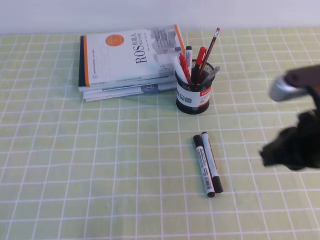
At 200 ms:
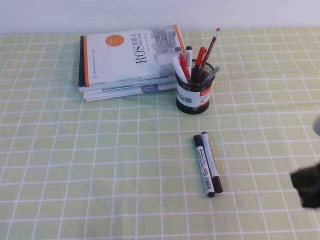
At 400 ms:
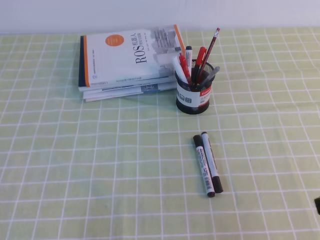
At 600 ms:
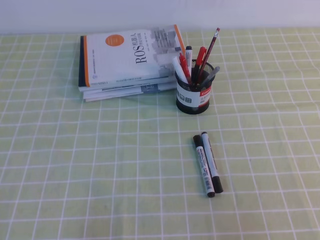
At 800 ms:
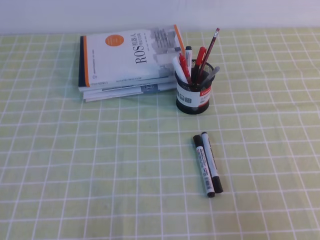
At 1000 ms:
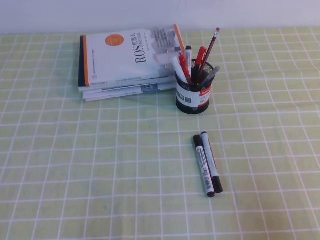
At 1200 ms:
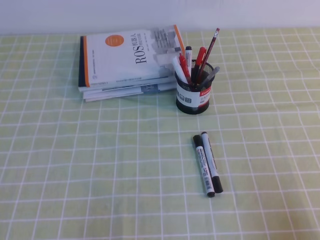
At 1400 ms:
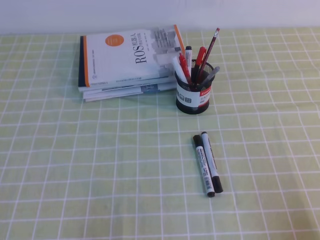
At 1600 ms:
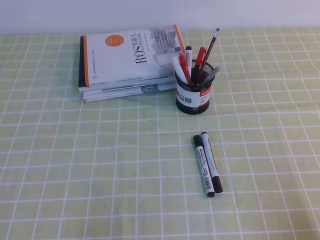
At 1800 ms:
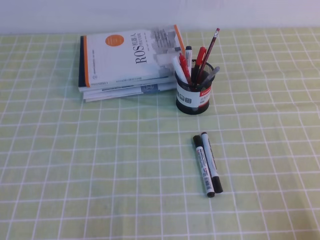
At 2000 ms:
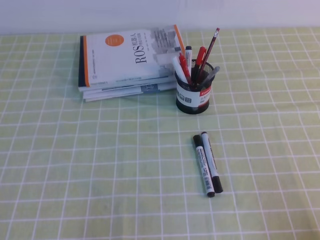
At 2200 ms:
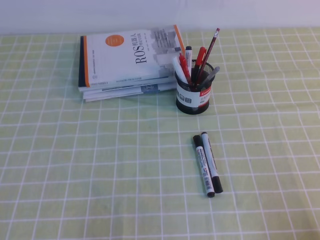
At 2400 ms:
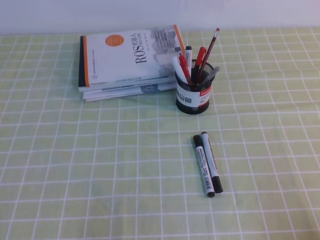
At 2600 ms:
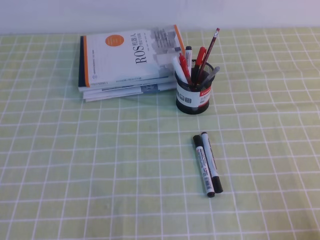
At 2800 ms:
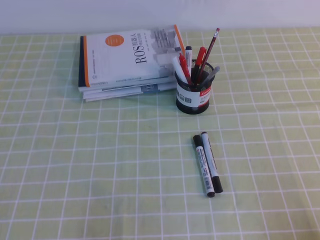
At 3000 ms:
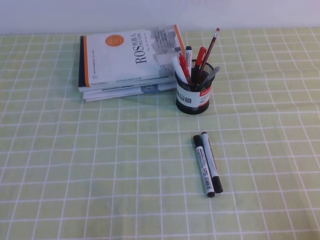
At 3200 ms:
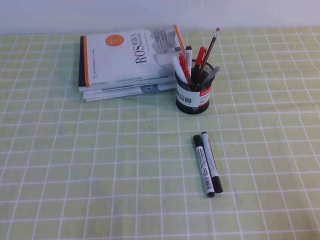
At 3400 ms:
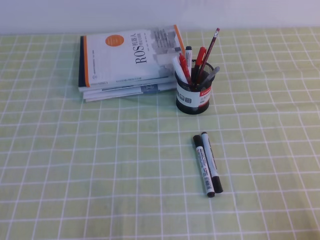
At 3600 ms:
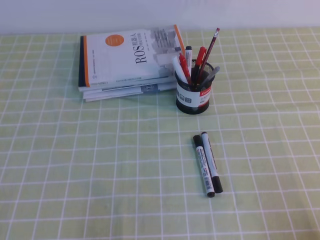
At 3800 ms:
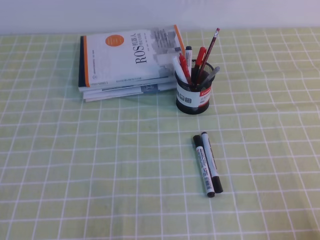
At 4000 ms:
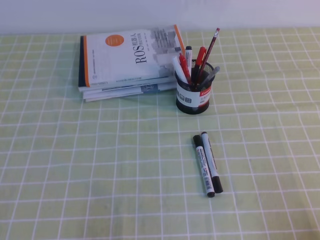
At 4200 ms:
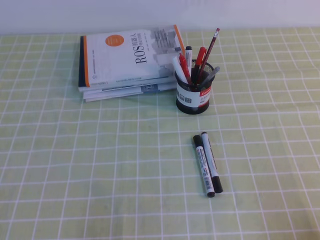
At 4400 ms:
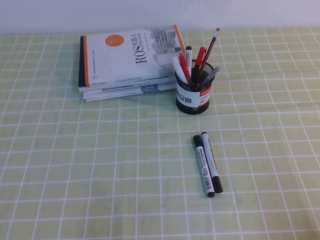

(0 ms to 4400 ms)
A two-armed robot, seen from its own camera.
Step, 0 ms - 4400 ms: Pick up the pen from the pen holder.
0 ms - 1400 ms: The right gripper goes approximately 20 cm backward, to the right and downward.
3000 ms - 4400 ms: Both grippers stay about where they are.

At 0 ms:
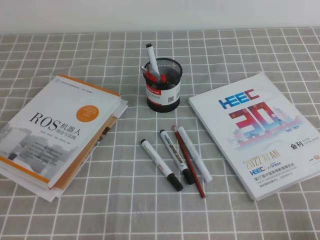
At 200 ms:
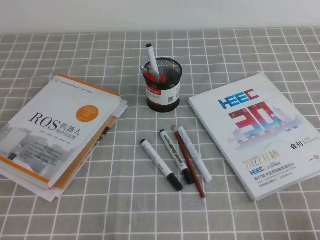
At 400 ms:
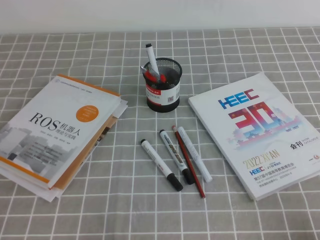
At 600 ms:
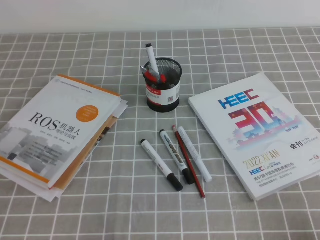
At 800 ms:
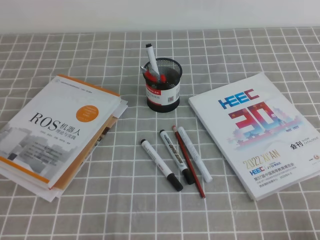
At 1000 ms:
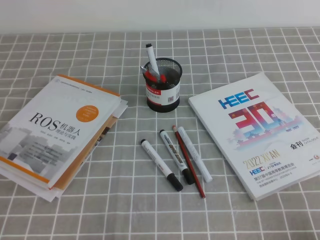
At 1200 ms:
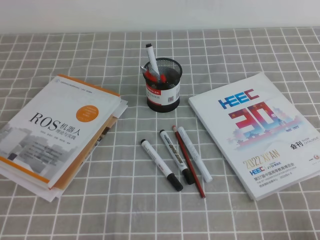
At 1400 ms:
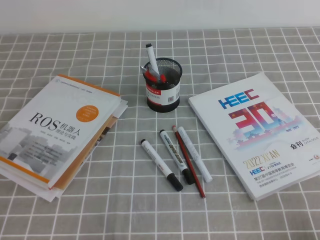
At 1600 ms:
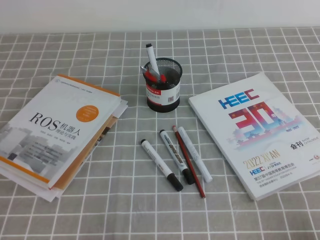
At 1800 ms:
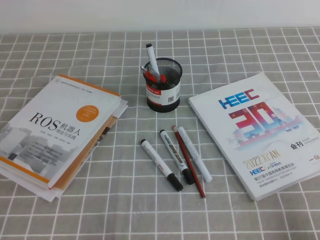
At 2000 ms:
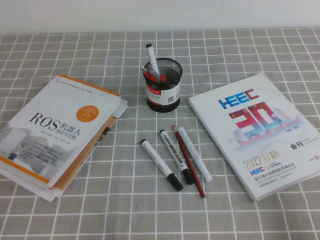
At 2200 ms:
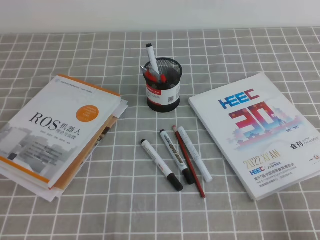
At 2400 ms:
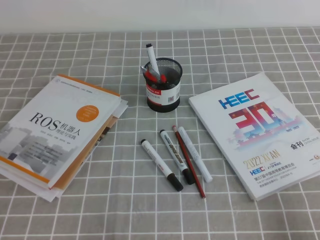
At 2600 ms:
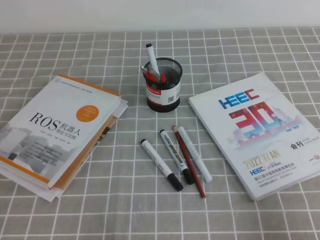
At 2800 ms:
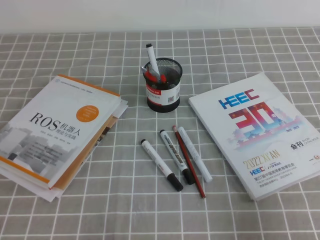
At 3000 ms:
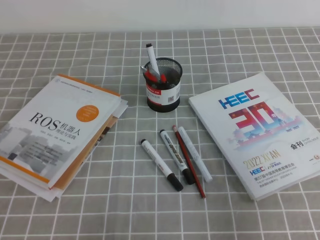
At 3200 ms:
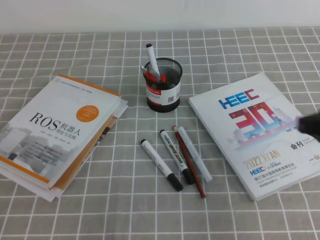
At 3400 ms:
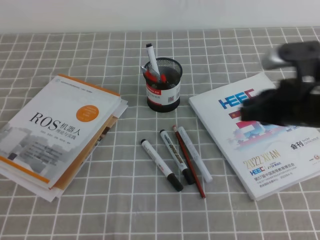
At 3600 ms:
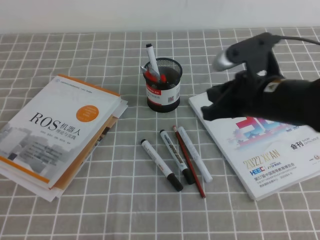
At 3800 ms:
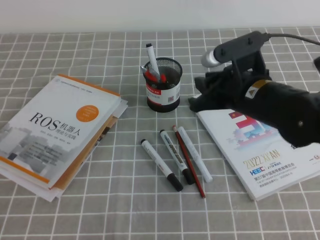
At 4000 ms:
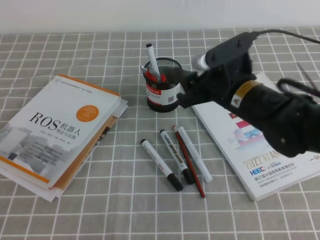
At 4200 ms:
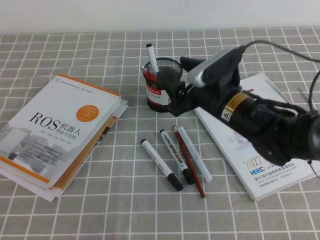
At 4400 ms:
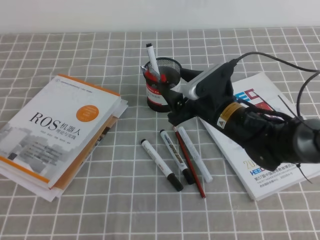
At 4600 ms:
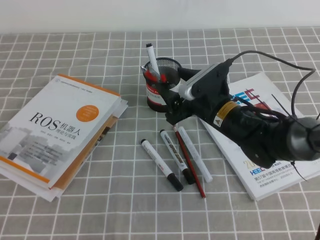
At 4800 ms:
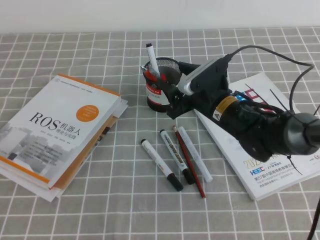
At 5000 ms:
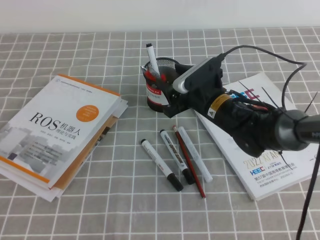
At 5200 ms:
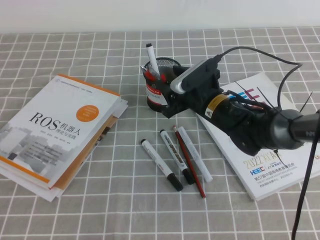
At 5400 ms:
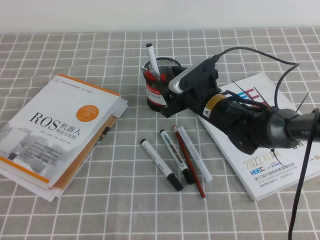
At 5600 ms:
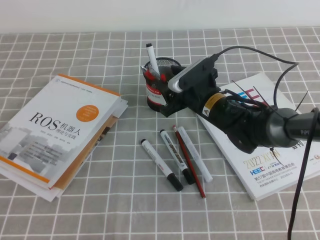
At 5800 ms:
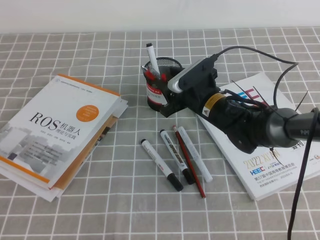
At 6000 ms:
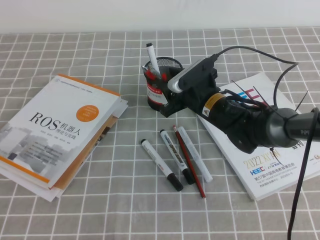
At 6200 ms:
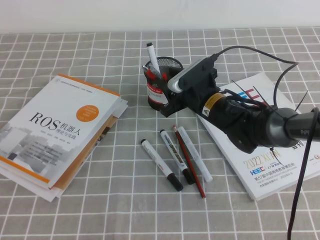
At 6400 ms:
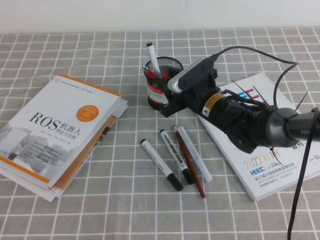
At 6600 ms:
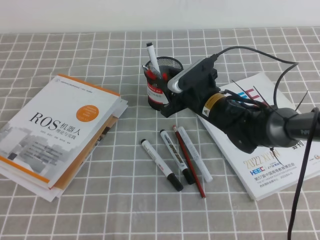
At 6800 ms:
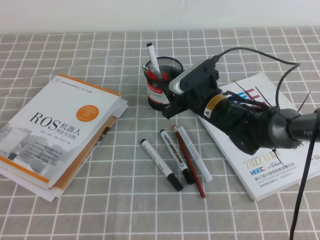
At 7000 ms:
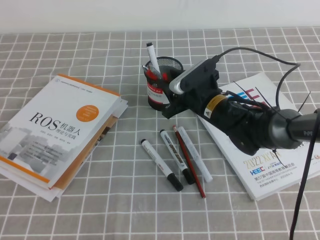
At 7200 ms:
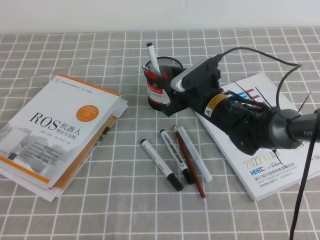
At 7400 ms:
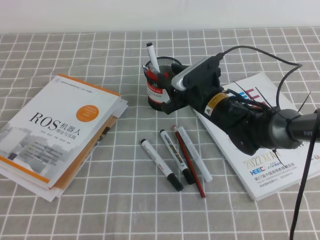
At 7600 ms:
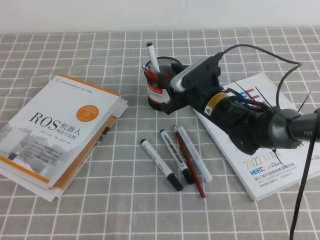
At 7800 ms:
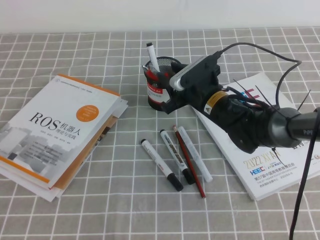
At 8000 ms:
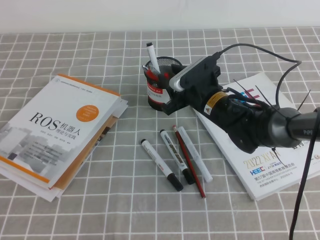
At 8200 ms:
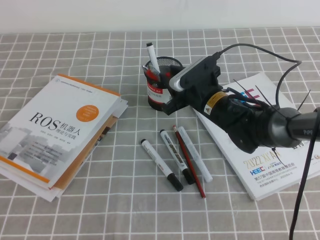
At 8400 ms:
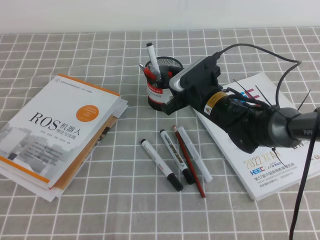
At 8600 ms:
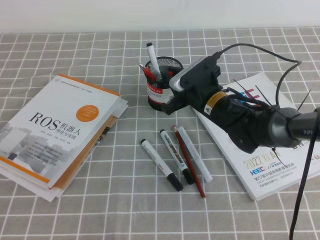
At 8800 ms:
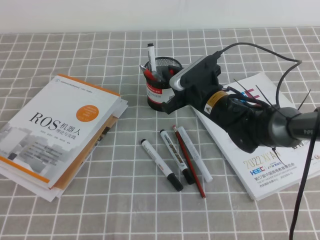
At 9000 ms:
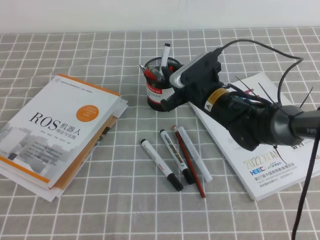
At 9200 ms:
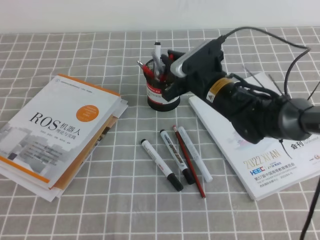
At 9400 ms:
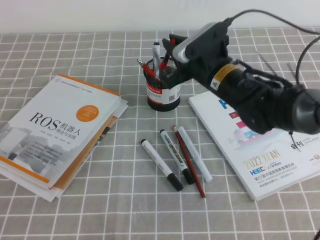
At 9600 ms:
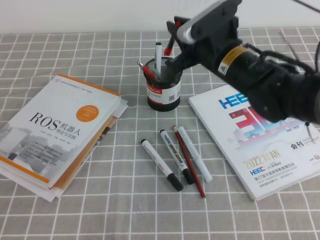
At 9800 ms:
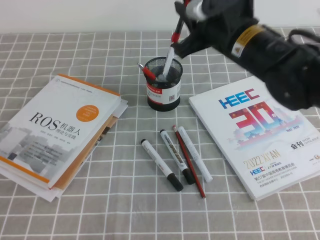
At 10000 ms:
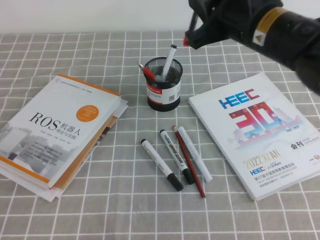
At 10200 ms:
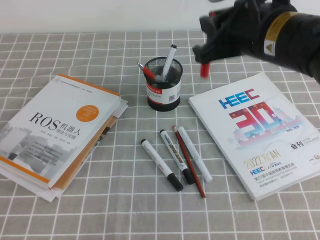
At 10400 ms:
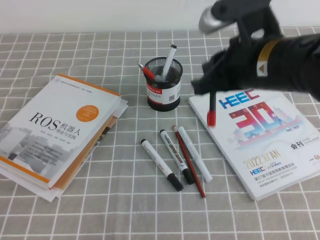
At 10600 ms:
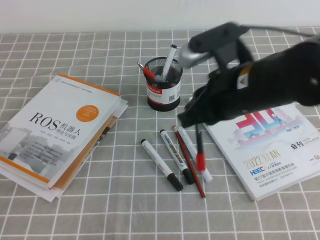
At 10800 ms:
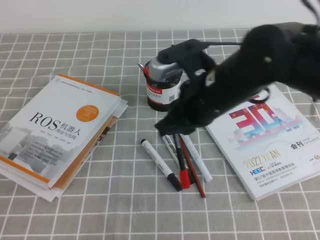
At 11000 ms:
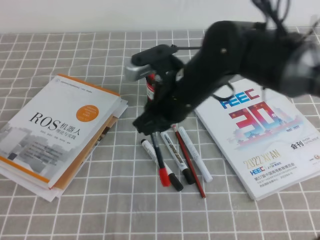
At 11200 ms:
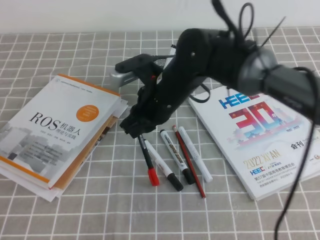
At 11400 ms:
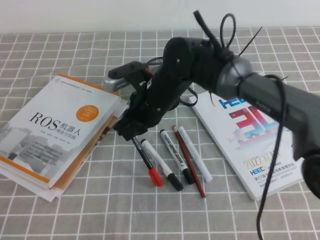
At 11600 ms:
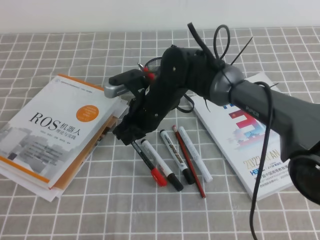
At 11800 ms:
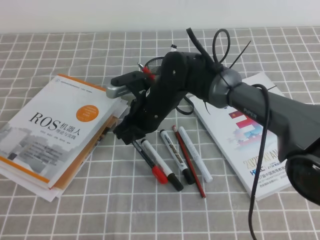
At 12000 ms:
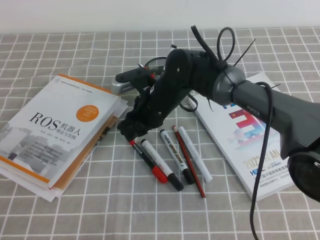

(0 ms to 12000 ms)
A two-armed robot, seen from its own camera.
0 ms - 1600 ms: Neither gripper changes place.
1600 ms - 3000 ms: The right gripper travels upward and forward by approximately 15 cm.
3000 ms - 4400 ms: The right gripper goes roughly 30 cm to the left, forward and downward, and opens its fingers.
4400 ms - 6000 ms: The right gripper travels forward by roughly 5 cm.
6000 ms - 7600 ms: Neither gripper changes place.
7600 ms - 9000 ms: The right gripper closes.
9000 ms - 10400 ms: The right gripper shifts about 20 cm upward and backward.
10400 ms - 12000 ms: The right gripper heads downward, to the left and forward, covering about 25 cm.

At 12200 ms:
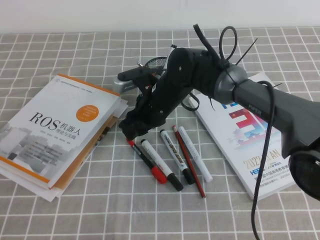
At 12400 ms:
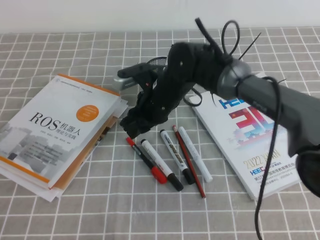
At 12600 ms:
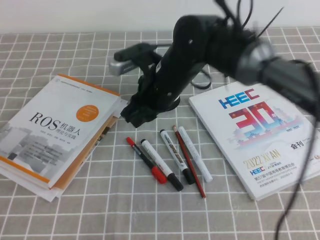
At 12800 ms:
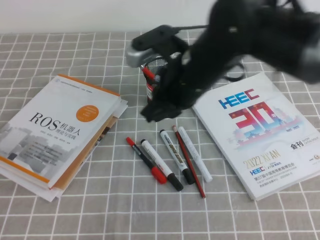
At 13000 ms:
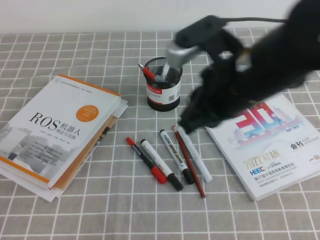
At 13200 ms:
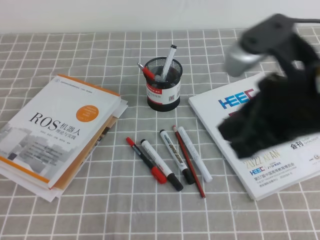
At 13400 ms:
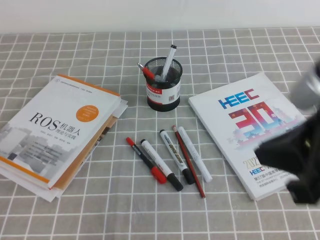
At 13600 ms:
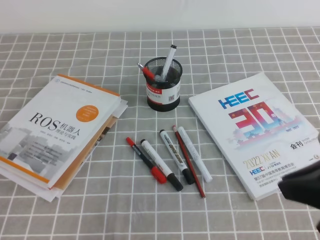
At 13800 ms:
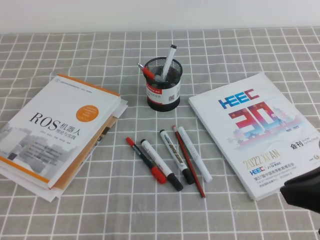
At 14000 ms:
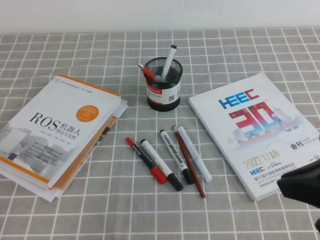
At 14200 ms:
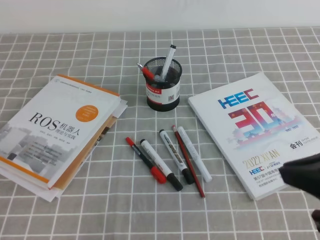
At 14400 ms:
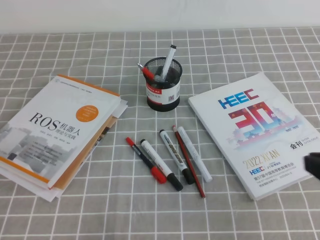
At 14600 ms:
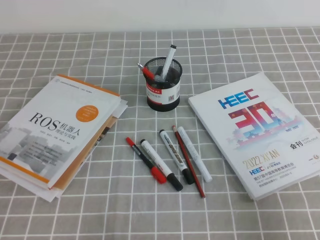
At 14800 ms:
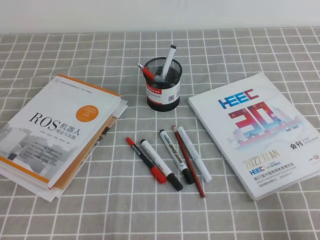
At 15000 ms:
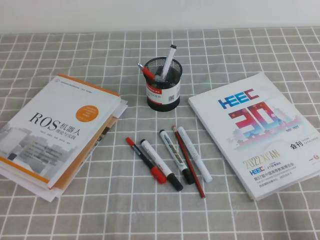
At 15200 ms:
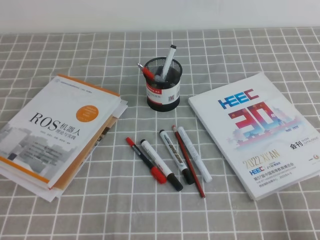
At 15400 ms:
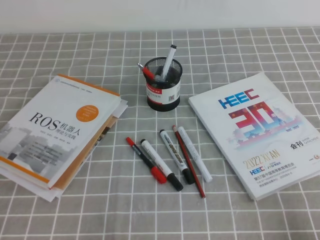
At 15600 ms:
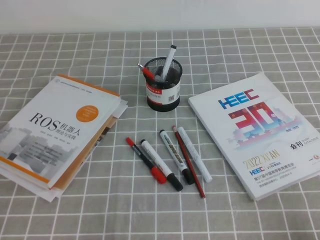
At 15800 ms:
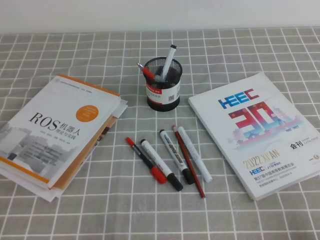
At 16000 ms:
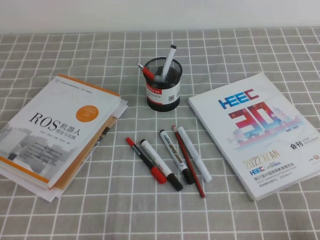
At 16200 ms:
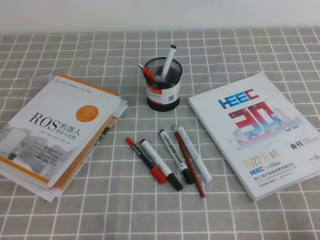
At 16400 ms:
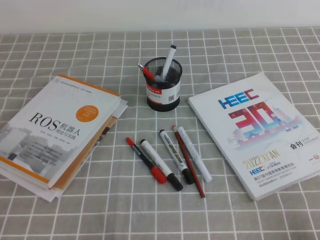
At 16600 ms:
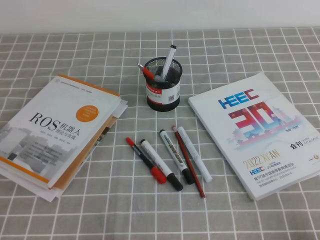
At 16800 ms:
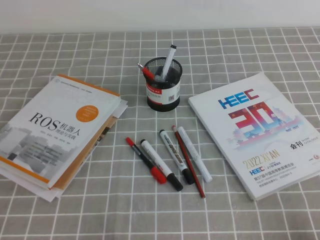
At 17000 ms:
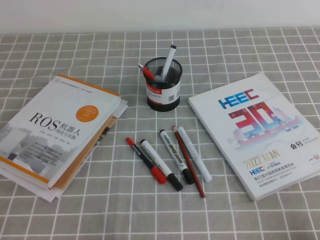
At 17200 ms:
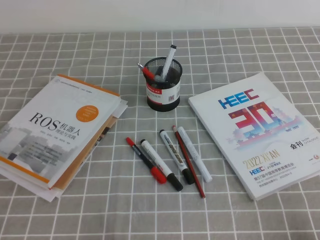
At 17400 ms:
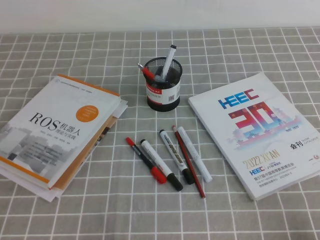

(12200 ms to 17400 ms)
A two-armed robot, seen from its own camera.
Step, 12200 ms - 17400 ms: Pick up the pen from the pen holder.
12200 ms - 14000 ms: The right gripper shifts about 40 cm backward, to the right and upward, and closes.
14000 ms - 15600 ms: The right gripper travels downward and to the right by roughly 20 cm.
15600 ms - 17400 ms: Neither gripper changes place.
